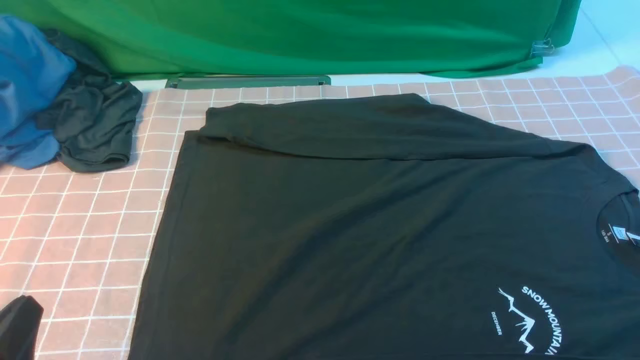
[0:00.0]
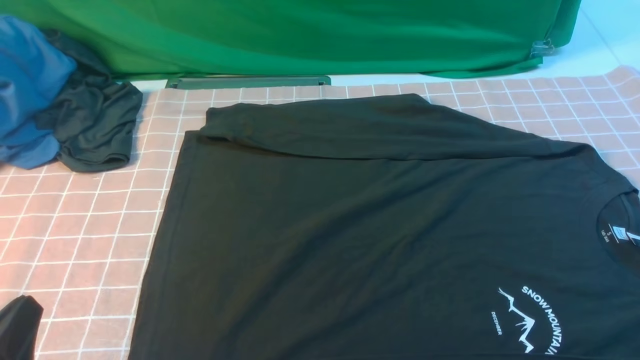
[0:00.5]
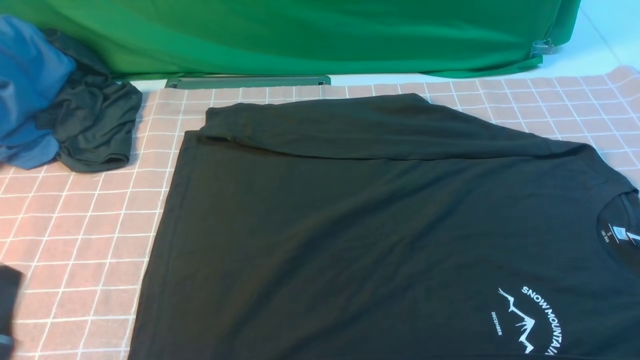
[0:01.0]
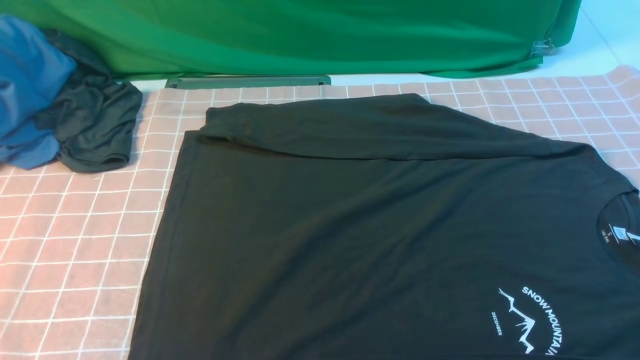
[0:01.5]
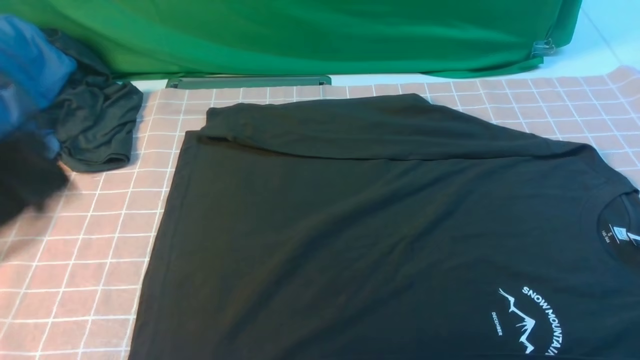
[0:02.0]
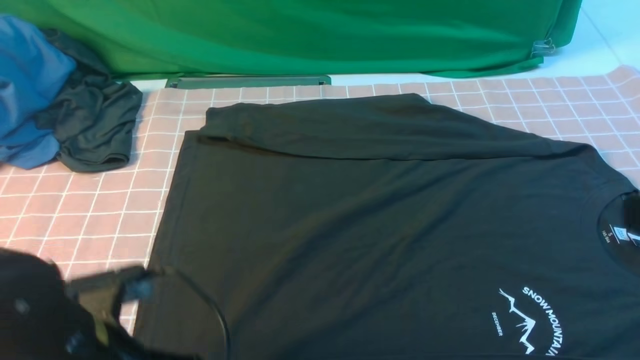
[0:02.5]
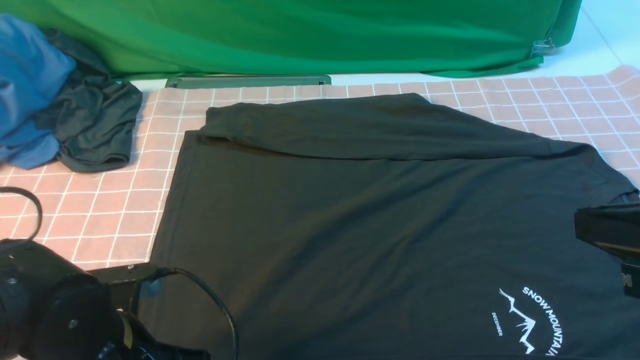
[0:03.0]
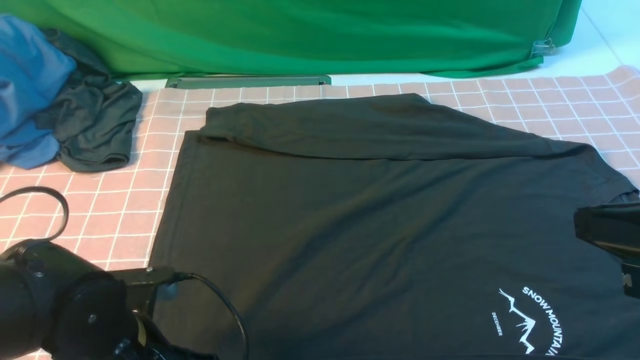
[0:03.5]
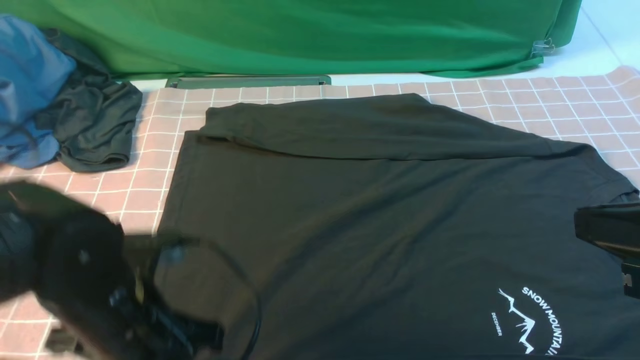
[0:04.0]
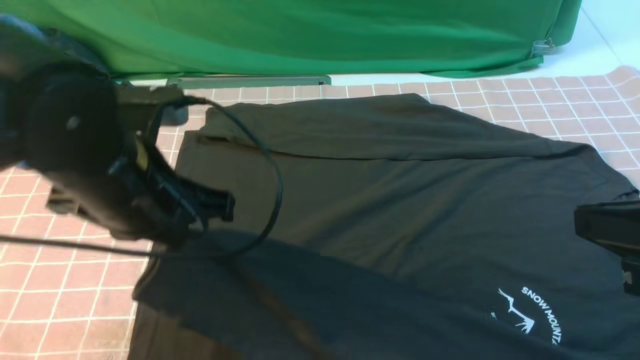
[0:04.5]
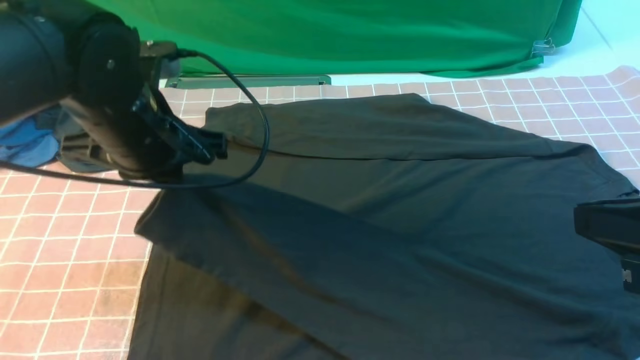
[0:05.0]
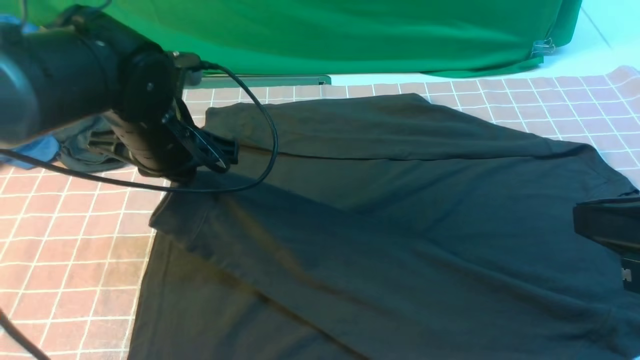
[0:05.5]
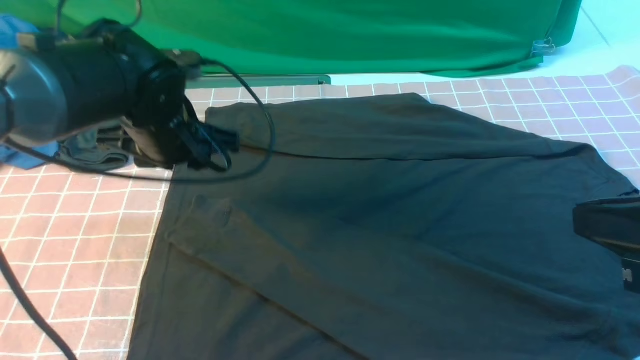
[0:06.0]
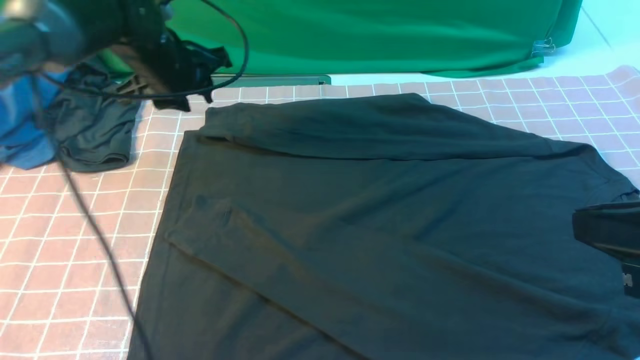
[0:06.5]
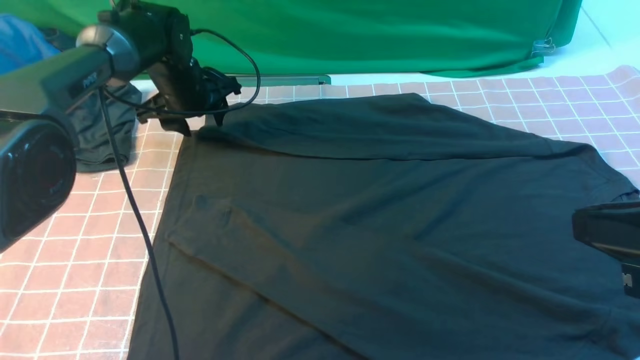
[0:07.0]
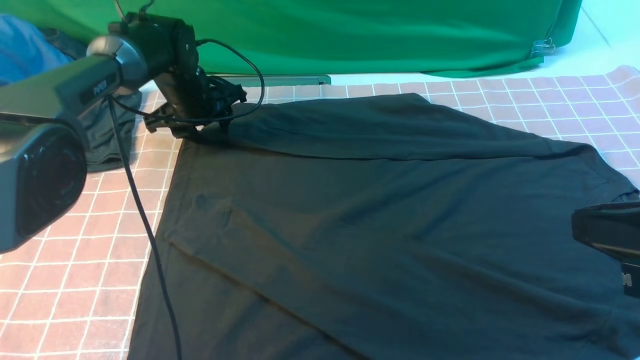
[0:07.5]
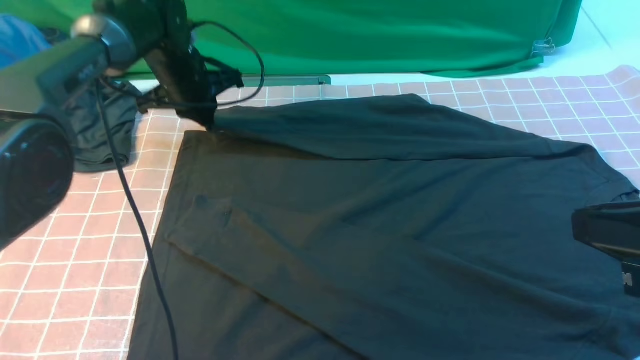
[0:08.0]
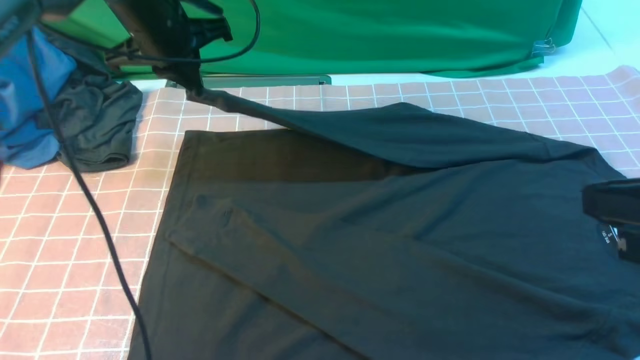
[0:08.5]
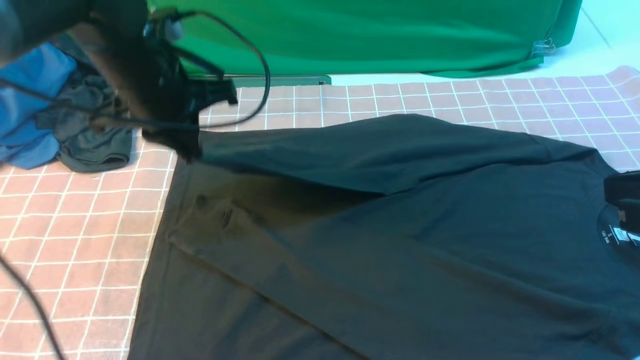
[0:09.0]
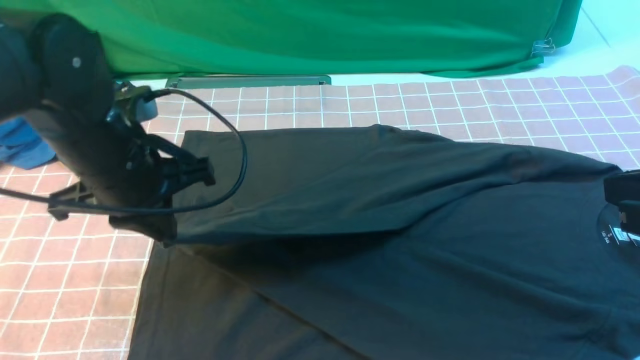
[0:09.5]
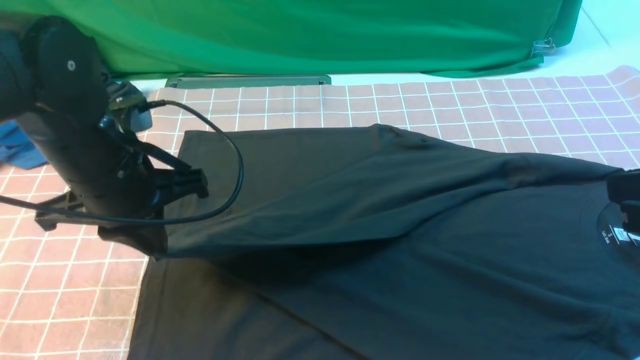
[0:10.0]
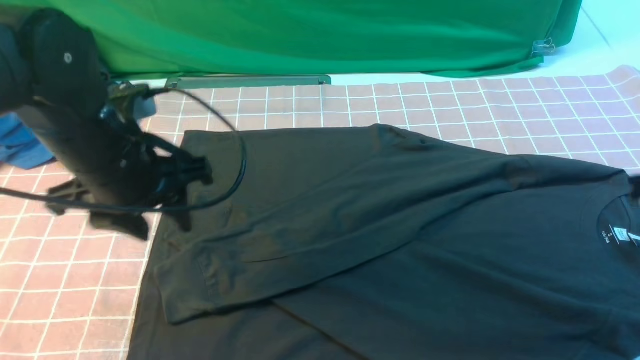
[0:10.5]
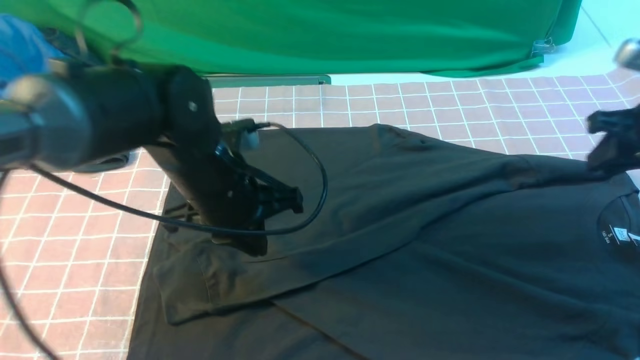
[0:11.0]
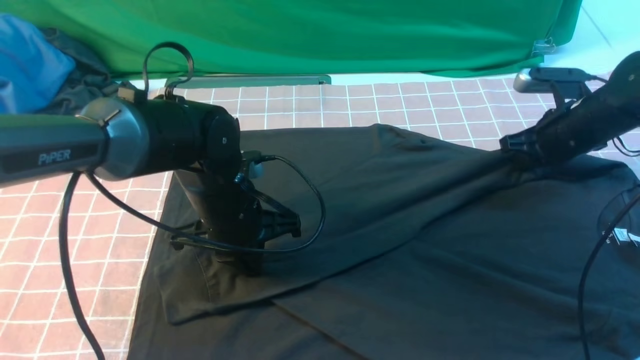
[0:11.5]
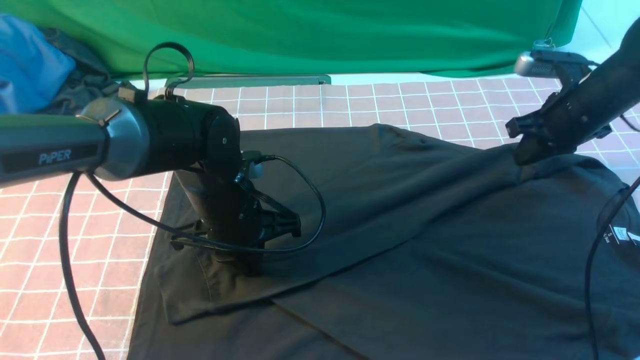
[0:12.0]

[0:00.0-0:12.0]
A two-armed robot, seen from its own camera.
Step, 0:00.0 to 0:04.0: use the left arm to clamp the cuff closest to it.
Step, 0:04.5 to 0:05.5: use the left arm to drag and place the cuff at the centered position on the left edge of the fabric.
Step, 0:06.0 to 0:08.0: use the left arm to clamp the cuff farthest from it.
Step, 0:08.5 to 0:10.0: use the left arm to drag and drop the cuff onto the cuff closest to the left arm.
0:00.0 to 0:02.0: The left gripper is displaced upward and forward by about 15 cm.
0:02.0 to 0:04.0: The left gripper shifts about 15 cm downward and to the right, and opens and closes again, while the right gripper travels forward and to the left by some 10 cm.
0:04.0 to 0:06.0: The left gripper moves forward, about 20 cm, and opens.
0:06.0 to 0:08.0: The left gripper moves forward, about 15 cm, and closes.
0:08.0 to 0:10.0: The left gripper is displaced backward by some 25 cm.
0:10.0 to 0:12.0: The right gripper goes roughly 30 cm forward and downward, while the left gripper moves downward and to the right, roughly 15 cm, and opens and closes again.

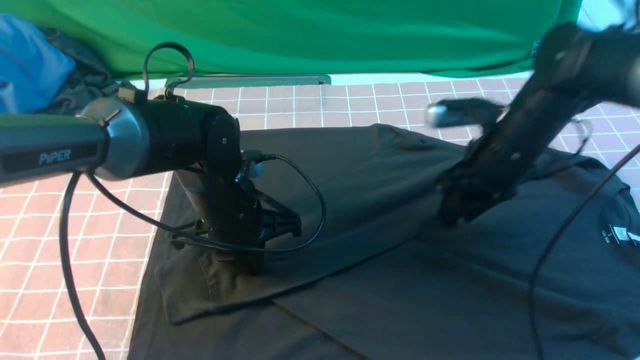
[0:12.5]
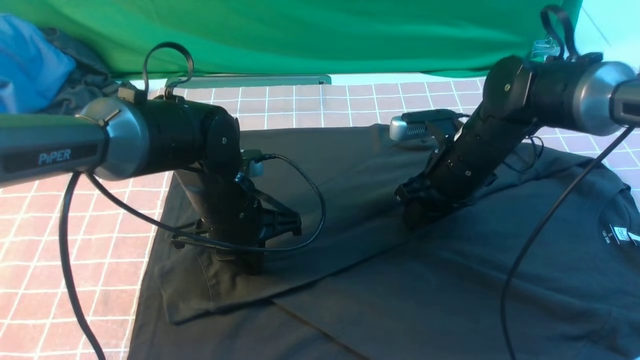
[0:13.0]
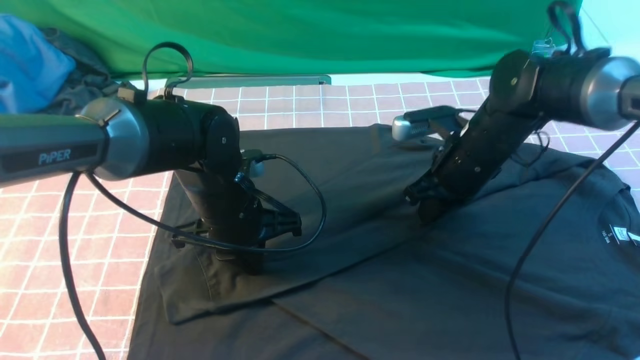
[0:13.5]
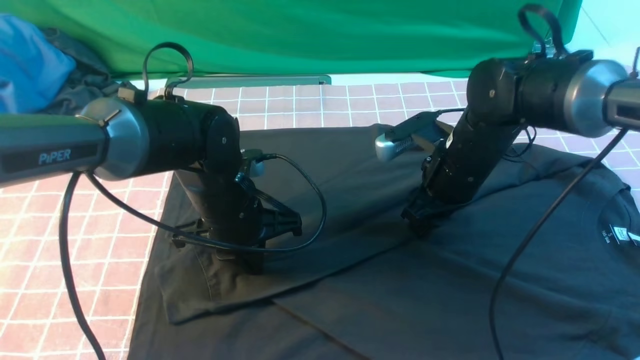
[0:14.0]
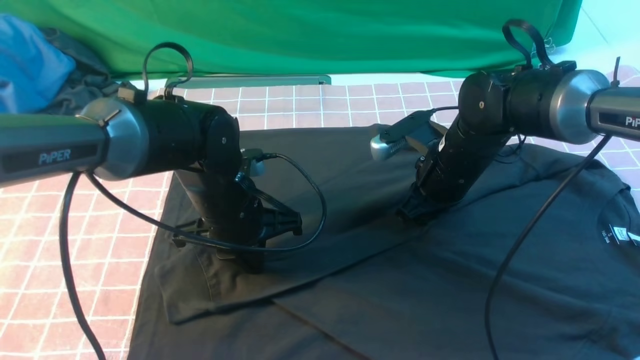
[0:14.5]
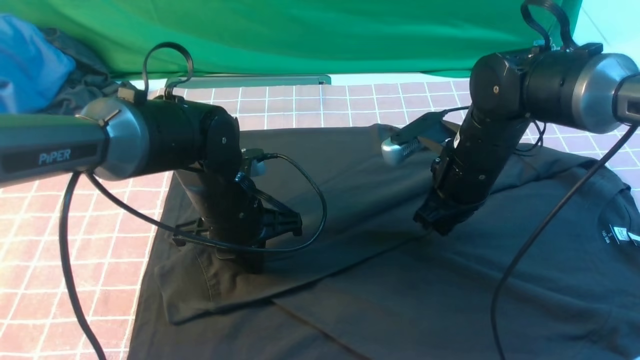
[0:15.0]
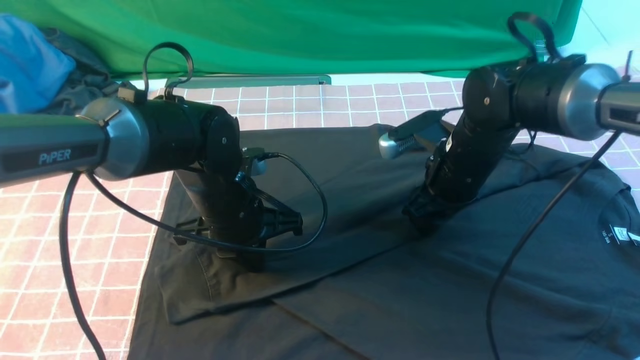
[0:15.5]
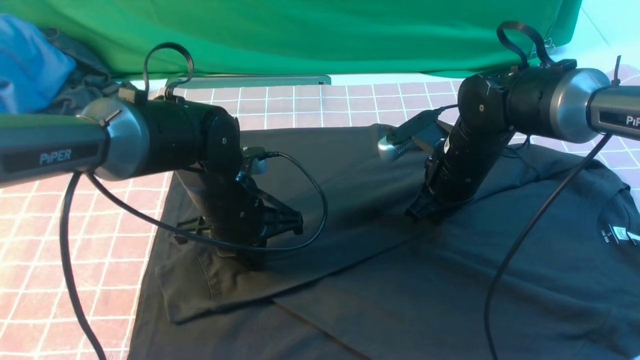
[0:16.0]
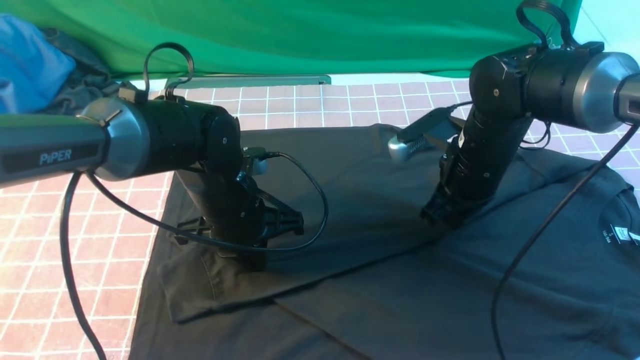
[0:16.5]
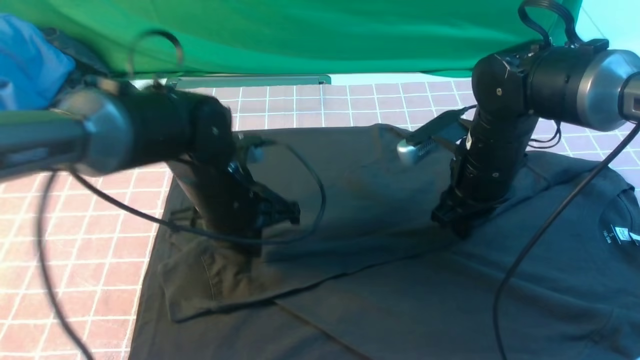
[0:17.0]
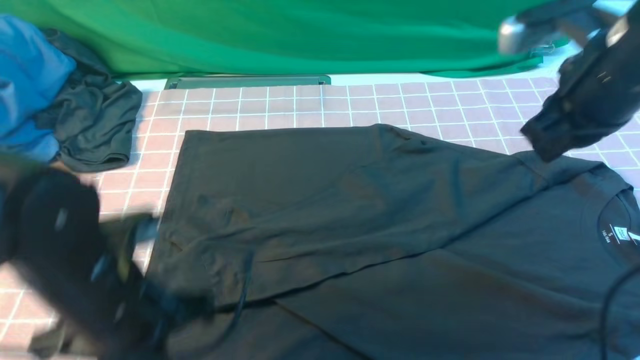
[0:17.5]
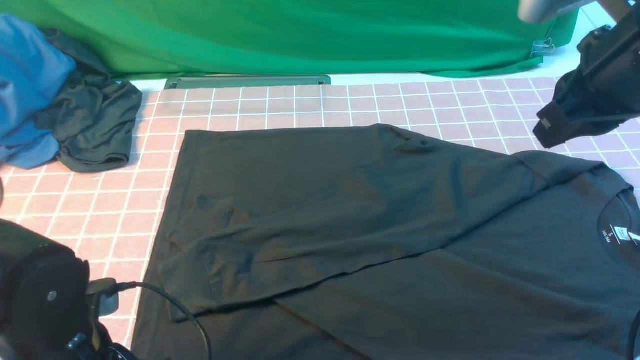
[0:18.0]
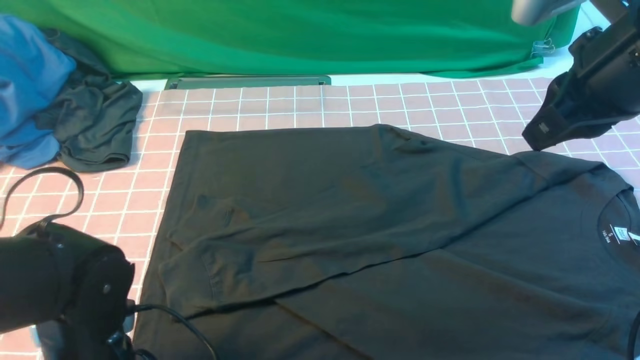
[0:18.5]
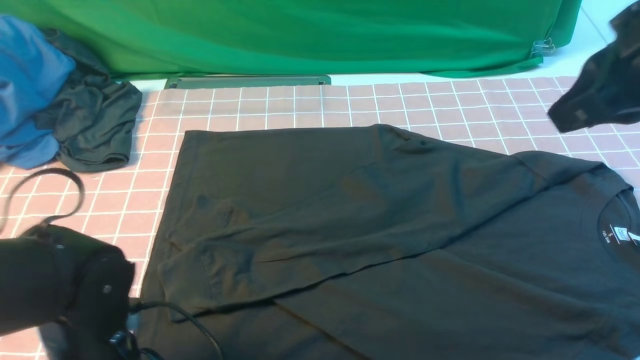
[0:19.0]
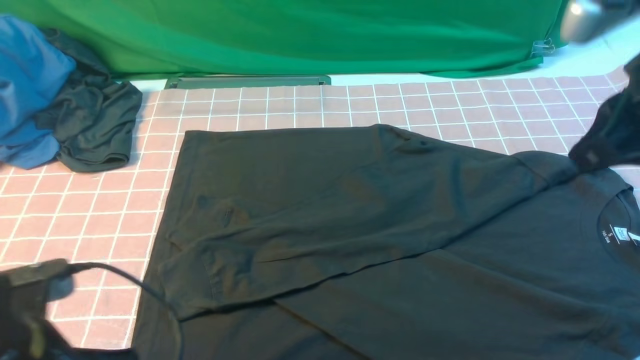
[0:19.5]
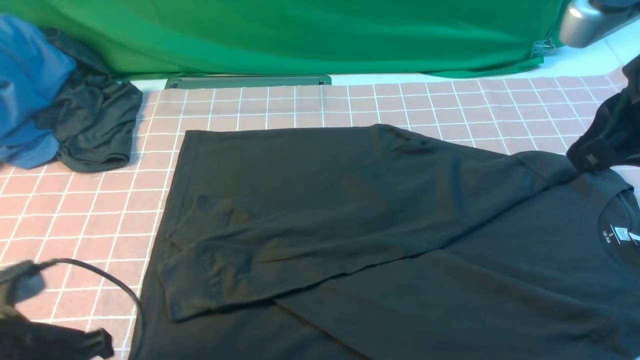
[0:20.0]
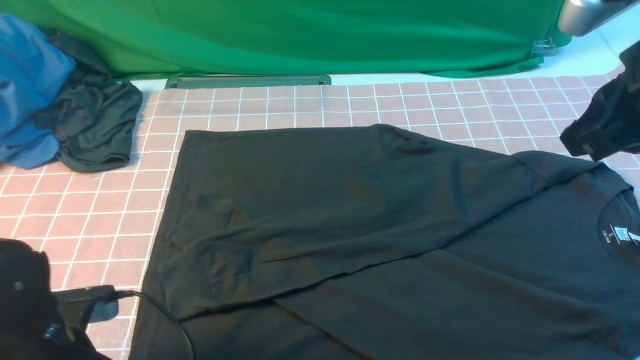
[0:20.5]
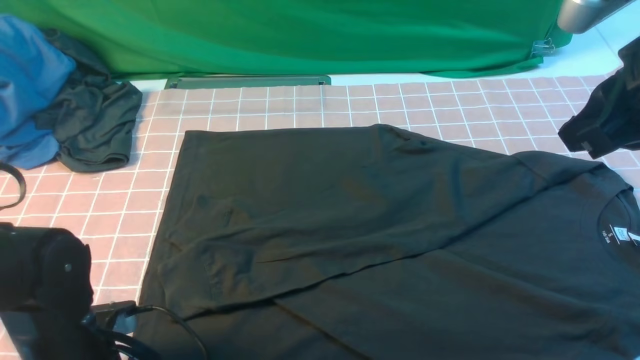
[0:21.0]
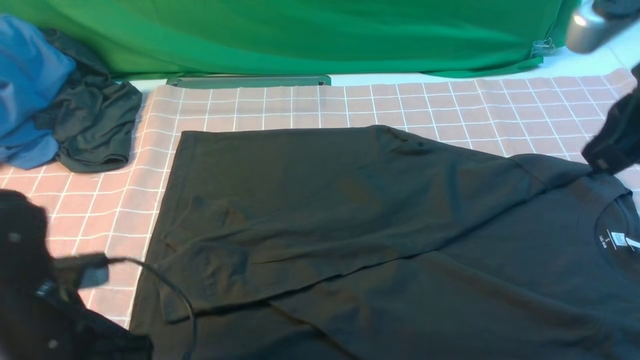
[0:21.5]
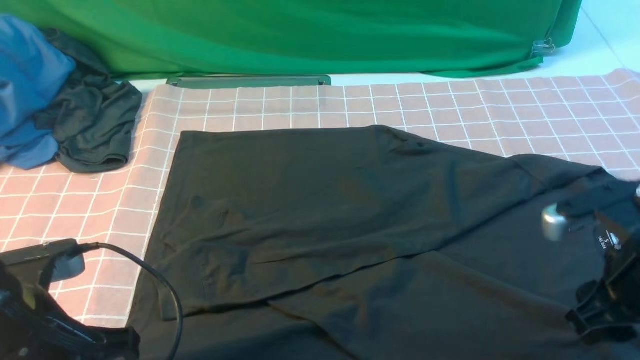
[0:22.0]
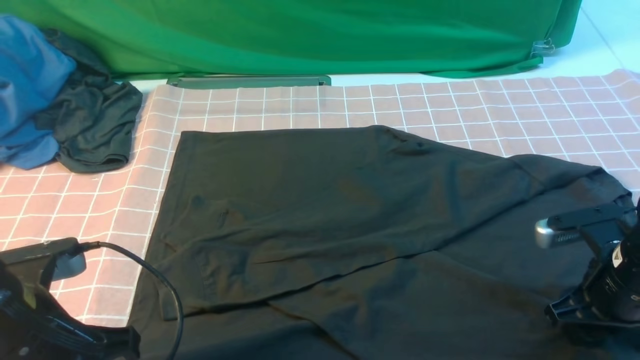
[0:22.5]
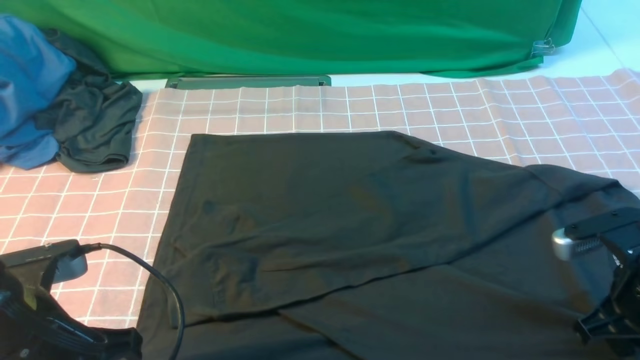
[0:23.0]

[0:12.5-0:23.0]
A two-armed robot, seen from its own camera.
0:12.5 to 0:14.5: The right gripper shifts approximately 5 cm to the left, and closes up.
0:14.5 to 0:16.5: The right gripper opens and closes again.
0:16.5 to 0:19.0: The right gripper shifts approximately 25 cm upward and backward, and opens, then closes again. Meanwhile the left gripper is displaced backward and to the left by roughly 20 cm, and opens and closes again.
0:19.0 to 0:21.0: The left gripper opens.
0:21.0 to 0:23.0: The right gripper is displaced downward by roughly 20 cm, and opens, then closes again; the left gripper moves upward, roughly 10 cm, and closes.
